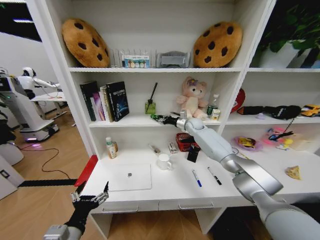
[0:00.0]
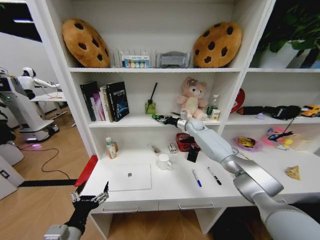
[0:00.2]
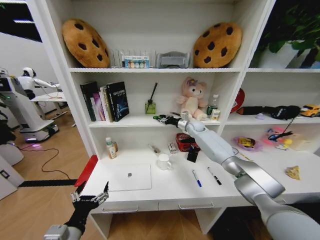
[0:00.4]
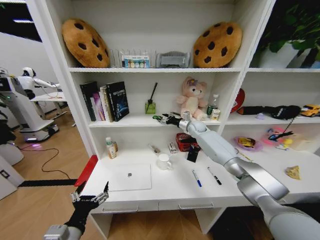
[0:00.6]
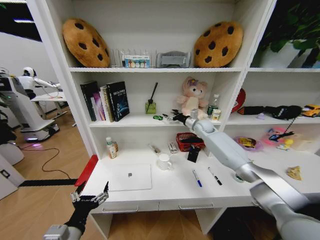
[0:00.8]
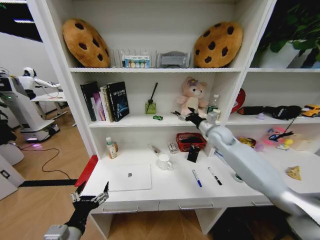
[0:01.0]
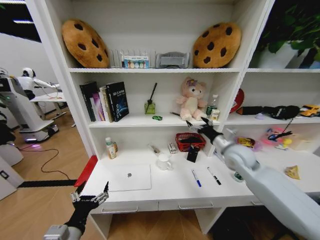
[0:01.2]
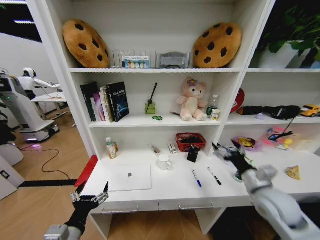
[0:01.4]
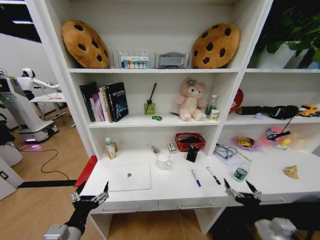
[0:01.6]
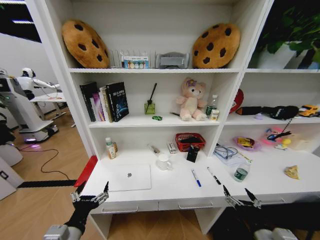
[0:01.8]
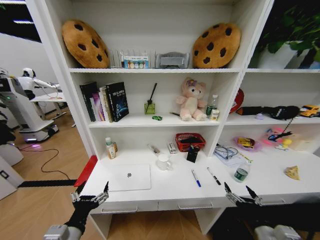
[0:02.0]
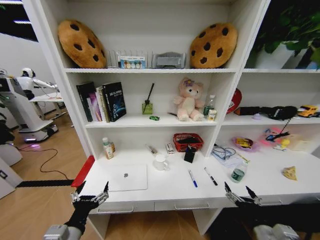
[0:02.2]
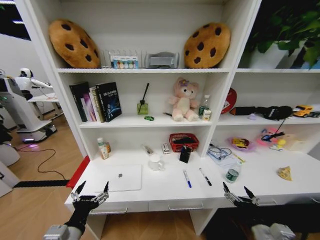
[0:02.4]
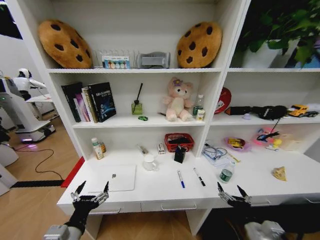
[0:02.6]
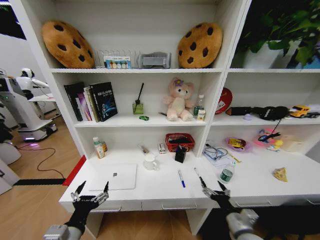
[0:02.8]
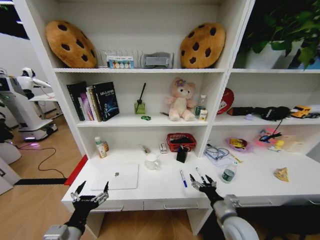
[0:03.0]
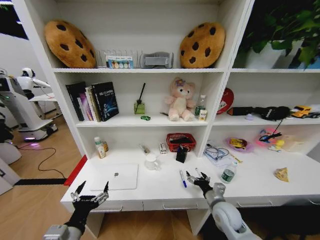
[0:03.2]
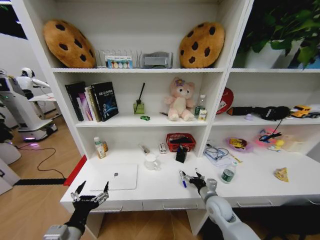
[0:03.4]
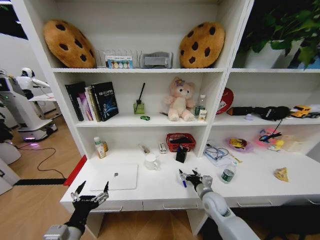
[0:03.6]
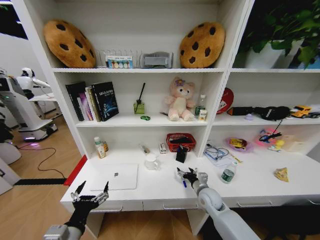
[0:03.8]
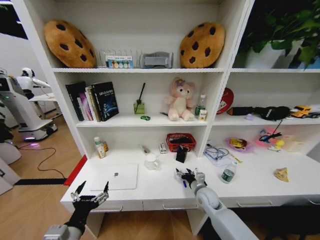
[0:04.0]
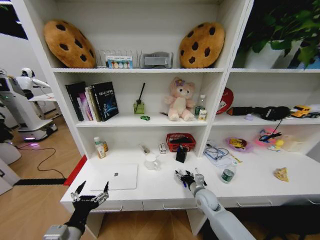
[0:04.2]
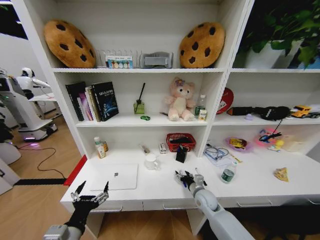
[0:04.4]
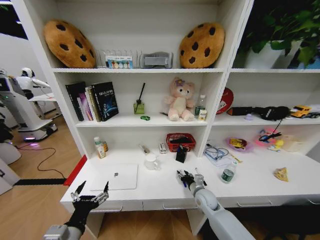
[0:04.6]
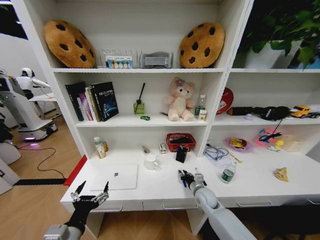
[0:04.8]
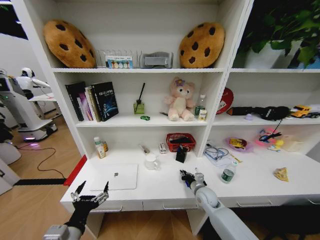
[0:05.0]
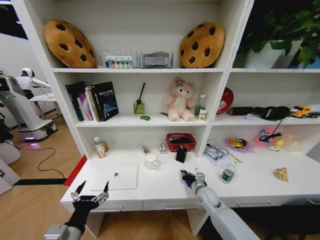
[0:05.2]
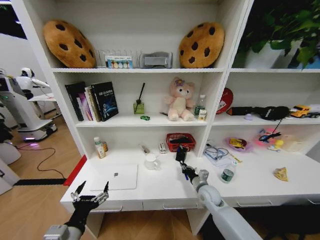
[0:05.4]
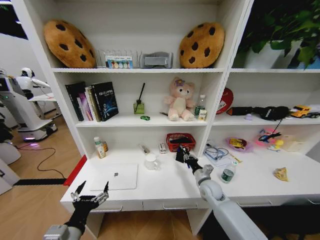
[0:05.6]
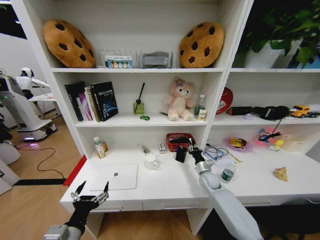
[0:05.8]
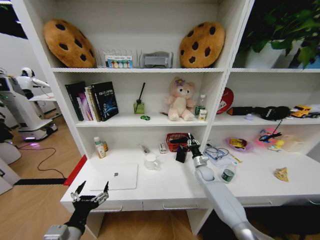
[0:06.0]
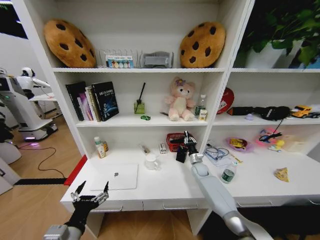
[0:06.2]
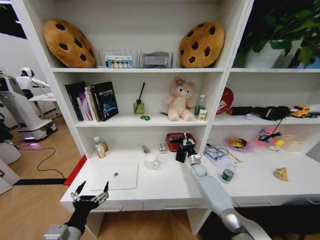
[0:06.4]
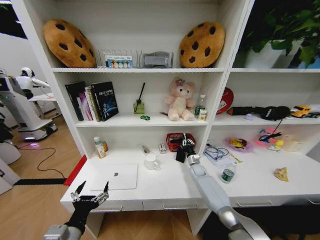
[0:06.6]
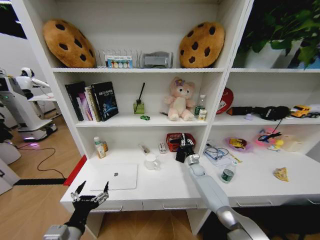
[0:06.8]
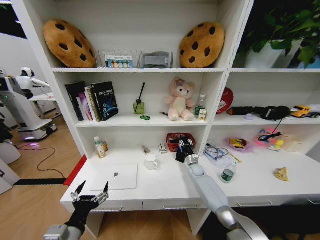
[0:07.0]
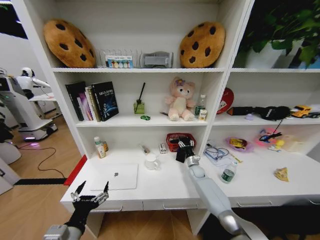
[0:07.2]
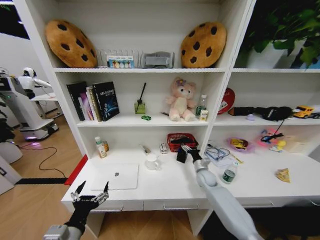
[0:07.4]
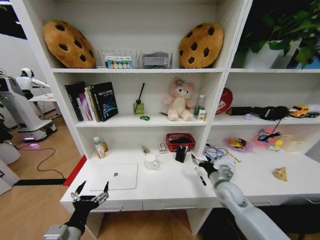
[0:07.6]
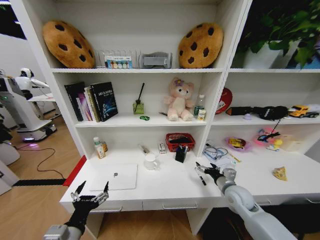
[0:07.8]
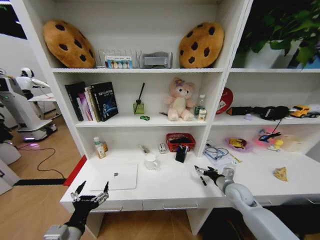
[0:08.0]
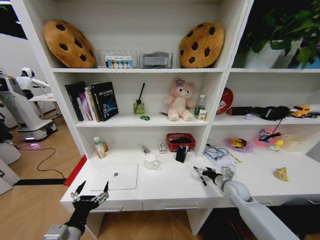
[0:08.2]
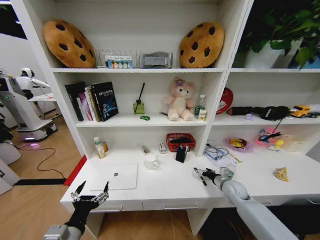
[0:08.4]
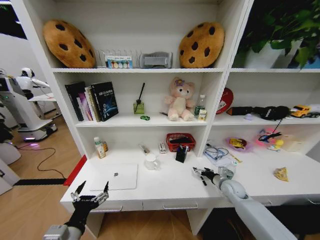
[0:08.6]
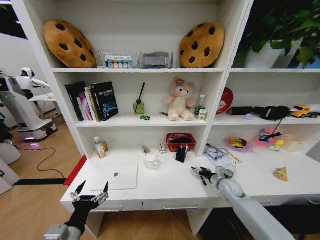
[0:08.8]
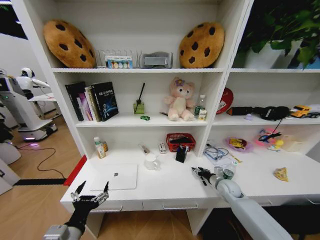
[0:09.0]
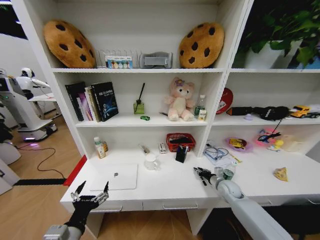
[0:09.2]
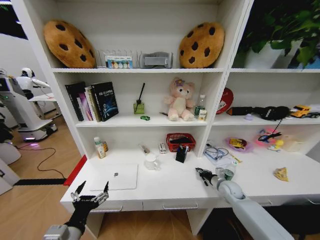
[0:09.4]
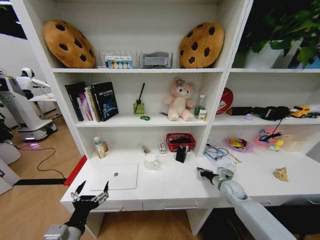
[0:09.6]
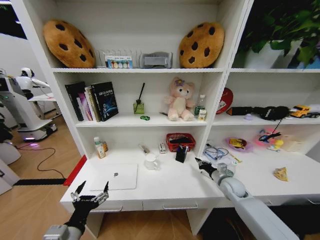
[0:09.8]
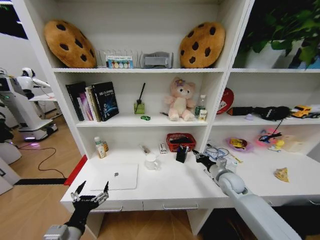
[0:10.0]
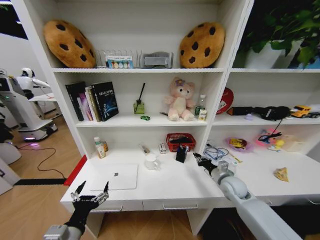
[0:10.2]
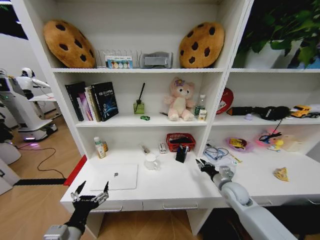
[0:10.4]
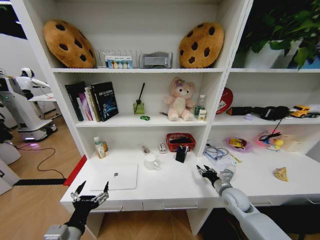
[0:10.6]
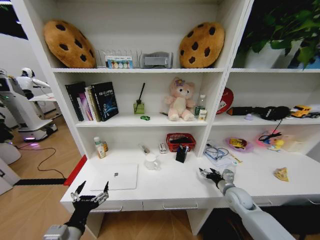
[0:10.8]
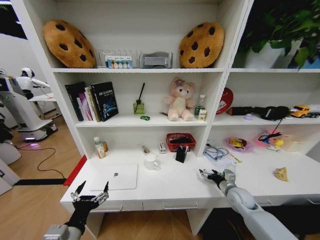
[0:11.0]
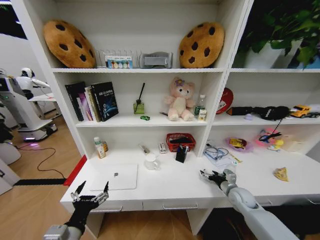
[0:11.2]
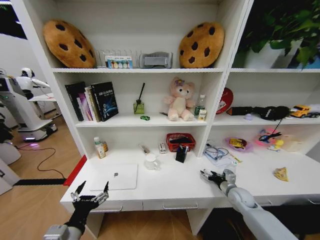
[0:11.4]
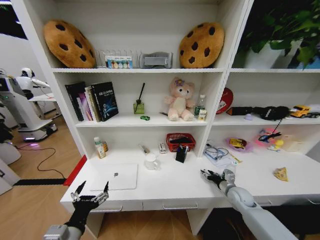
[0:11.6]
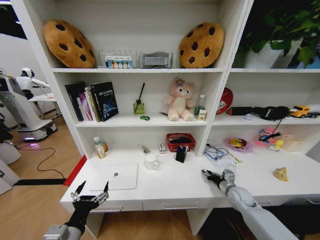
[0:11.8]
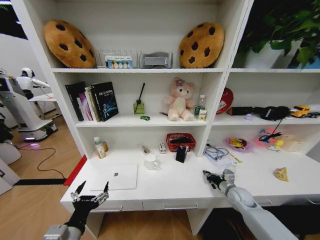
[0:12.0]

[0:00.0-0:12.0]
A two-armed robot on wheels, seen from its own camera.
Task of the whole recording: Organize the objects on the table.
0:00.0 to 0:01.6: The right gripper moves backward, approximately 50 cm, and opens up.
0:01.6 to 0:03.0: The right gripper heads to the left and forward, covering about 10 cm.
0:03.0 to 0:04.4: The right gripper heads forward and downward, covering about 15 cm.
0:04.4 to 0:06.0: The right gripper shifts some 15 cm forward, and closes its fingers.
0:06.0 to 0:07.6: The right gripper goes about 15 cm backward and upward, and opens up.
0:07.6 to 0:09.0: The right gripper shifts approximately 10 cm downward and to the right, and closes its fingers.
0:09.0 to 0:10.4: The right gripper shifts roughly 5 cm upward, and closes up.
0:10.4 to 0:12.0: The right gripper goes approximately 10 cm to the right and downward, and opens and closes again.

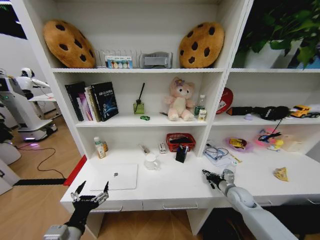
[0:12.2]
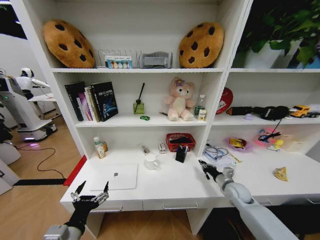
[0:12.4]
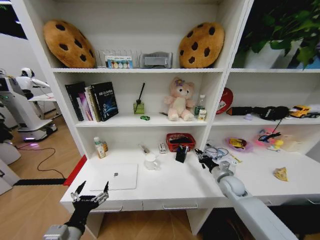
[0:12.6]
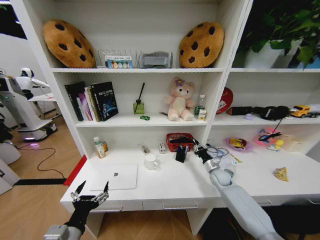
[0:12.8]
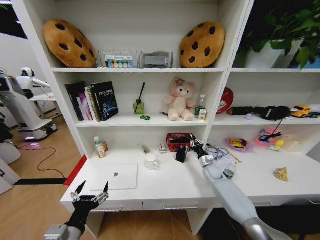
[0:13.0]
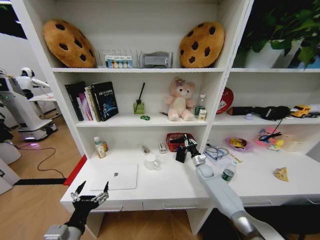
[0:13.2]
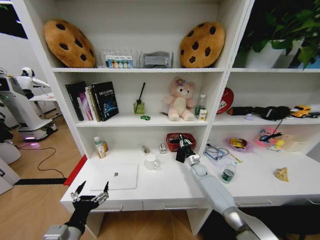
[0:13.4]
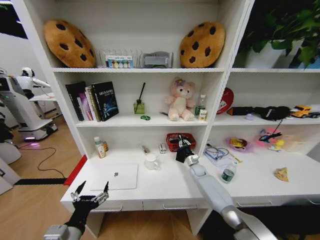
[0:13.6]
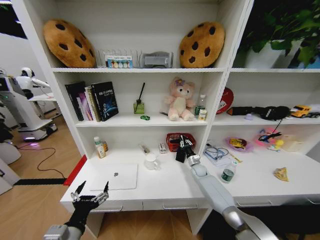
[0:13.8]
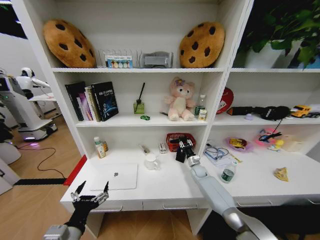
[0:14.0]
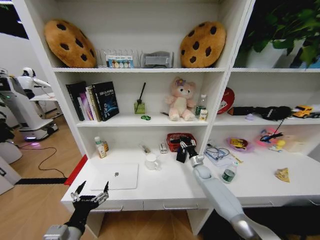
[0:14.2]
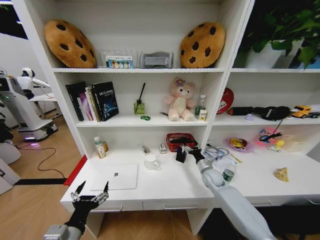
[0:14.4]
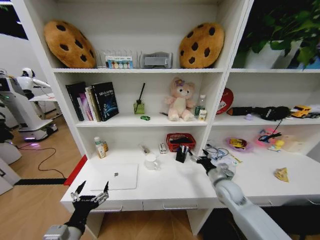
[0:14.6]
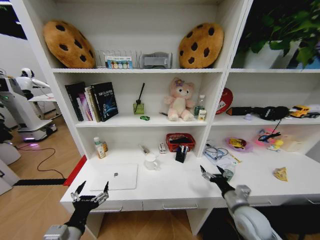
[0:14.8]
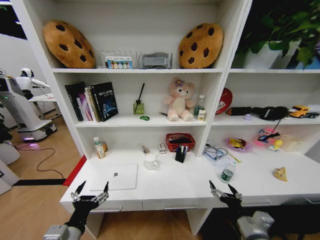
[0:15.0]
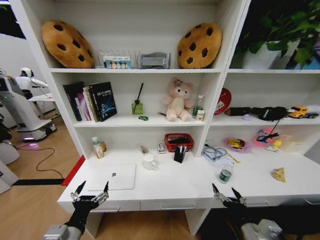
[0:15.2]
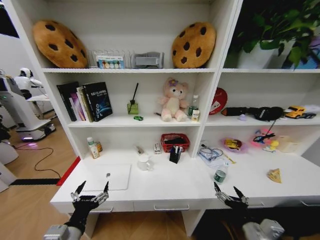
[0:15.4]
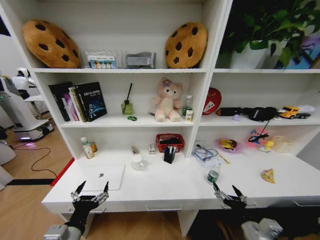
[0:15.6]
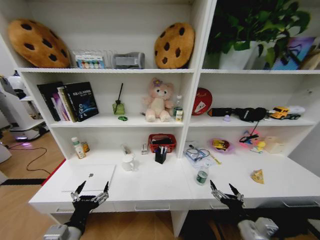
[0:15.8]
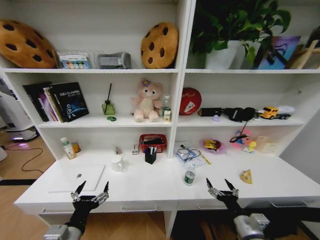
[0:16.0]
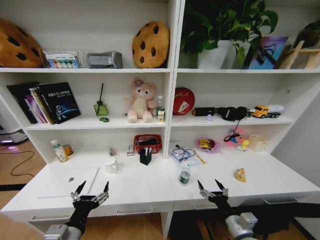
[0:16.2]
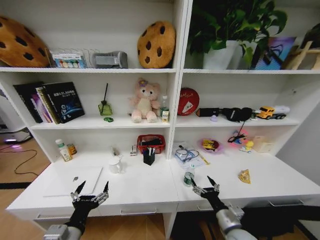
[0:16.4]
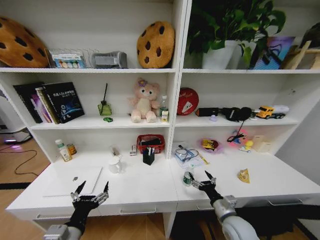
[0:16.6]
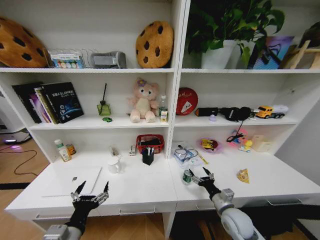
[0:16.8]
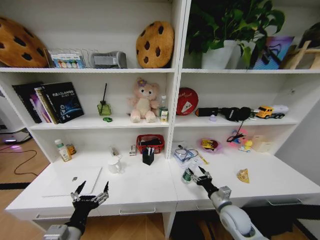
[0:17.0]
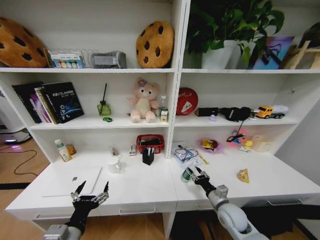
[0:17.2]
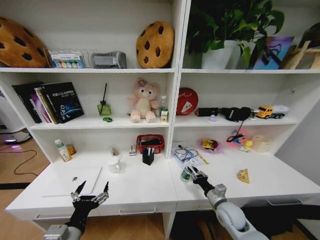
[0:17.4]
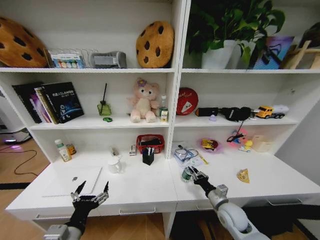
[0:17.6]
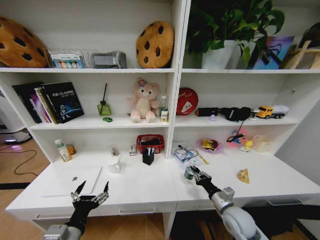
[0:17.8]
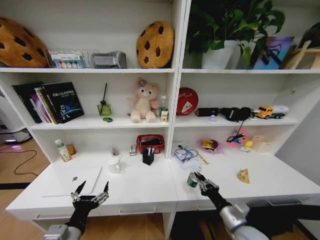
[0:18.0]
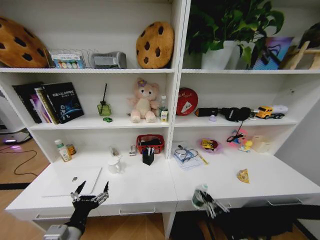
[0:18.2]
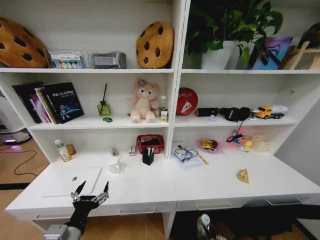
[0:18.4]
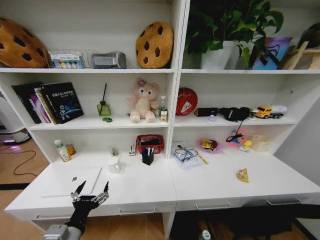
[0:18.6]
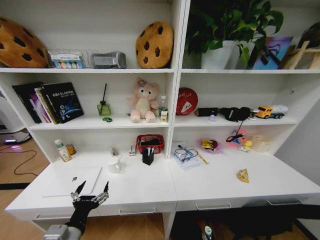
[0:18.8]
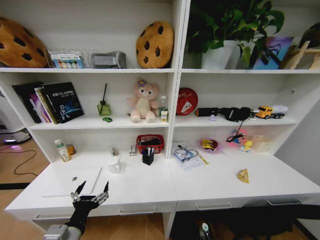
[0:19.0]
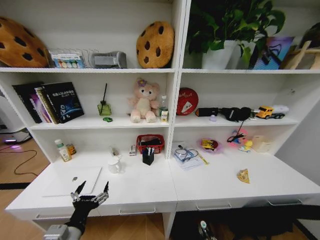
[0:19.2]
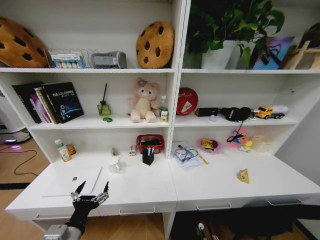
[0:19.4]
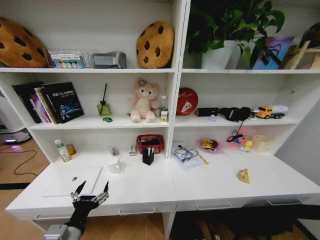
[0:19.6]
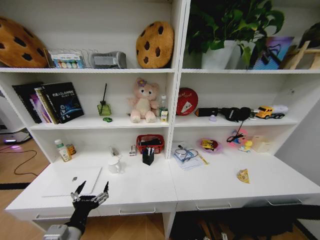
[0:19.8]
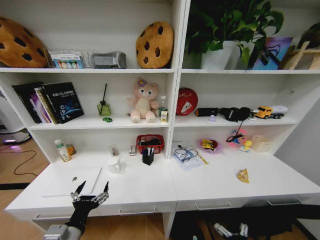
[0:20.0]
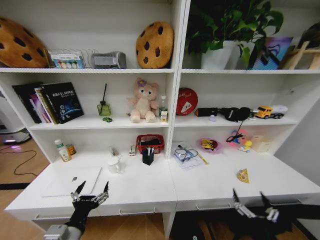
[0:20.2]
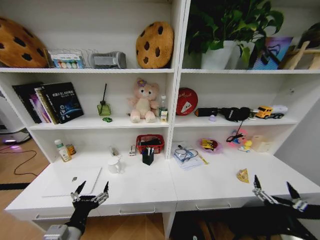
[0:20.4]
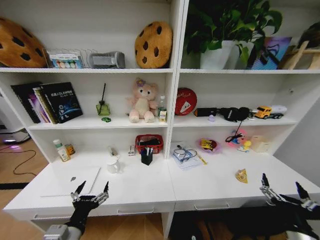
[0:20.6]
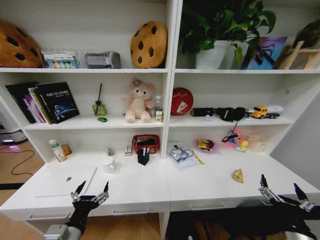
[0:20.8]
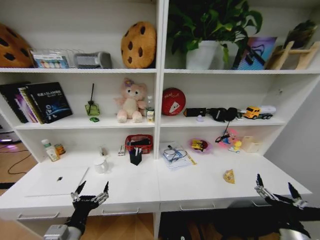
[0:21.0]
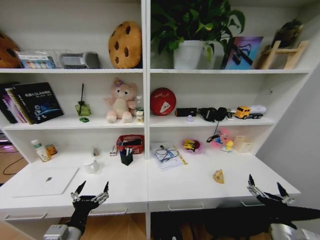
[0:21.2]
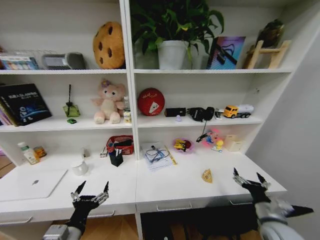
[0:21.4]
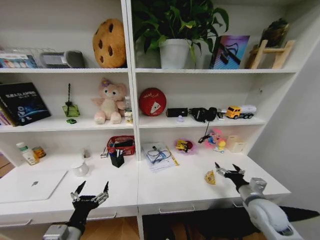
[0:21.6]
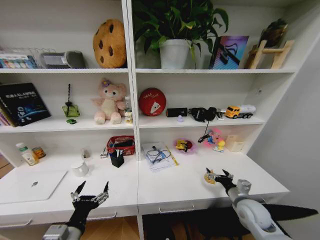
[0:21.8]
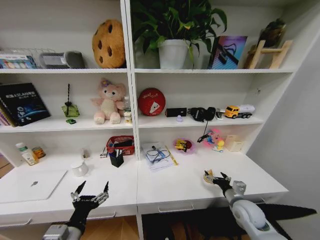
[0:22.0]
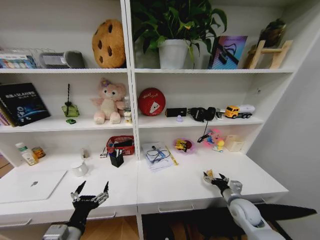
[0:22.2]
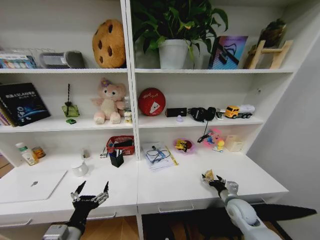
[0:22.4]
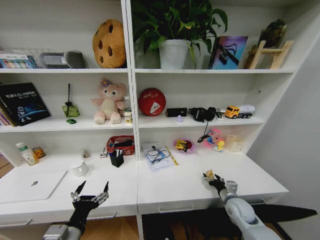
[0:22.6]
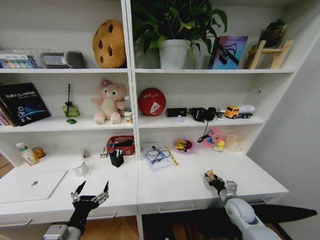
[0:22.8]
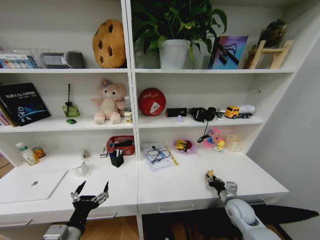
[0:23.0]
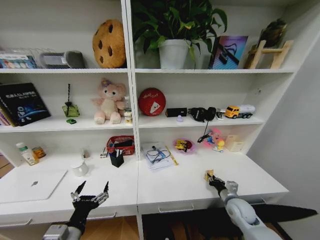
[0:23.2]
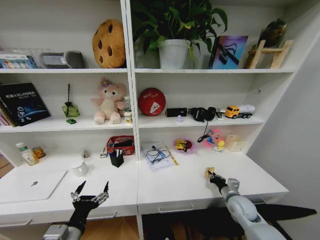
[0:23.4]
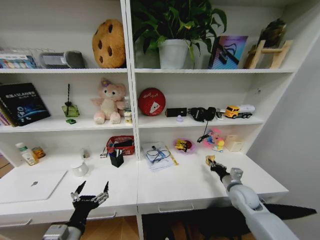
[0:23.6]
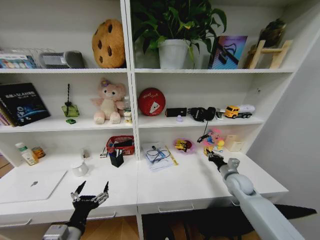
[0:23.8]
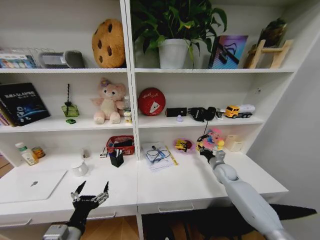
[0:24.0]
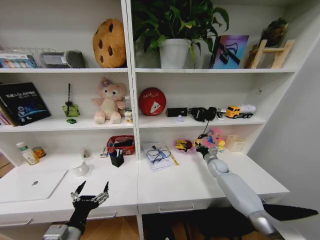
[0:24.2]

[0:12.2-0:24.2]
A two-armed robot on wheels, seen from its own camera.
Task of the whole recording: Organize the objects on the table.
0:12.2 to 0:13.8: The right gripper shifts roughly 20 cm forward and to the left.
0:13.8 to 0:15.2: The right gripper shifts roughly 40 cm backward, and opens its fingers.
0:15.2 to 0:16.6: The right gripper is displaced forward by approximately 10 cm.
0:16.6 to 0:18.2: The right gripper is displaced backward by about 15 cm, and closes up.
0:18.2 to 0:19.8: The right gripper travels downward by about 25 cm, and opens.
0:19.8 to 0:21.2: The right gripper goes roughly 30 cm upward.
0:21.2 to 0:22.6: The right gripper heads forward, covering roughly 15 cm.
0:22.6 to 0:24.2: The right gripper goes approximately 20 cm forward, and closes.
